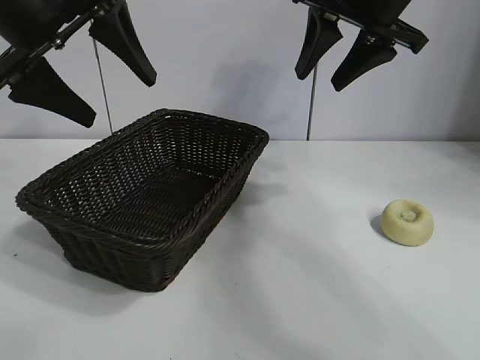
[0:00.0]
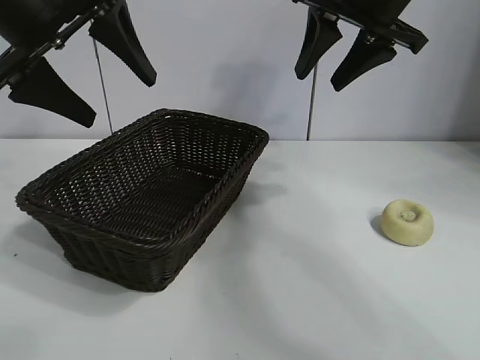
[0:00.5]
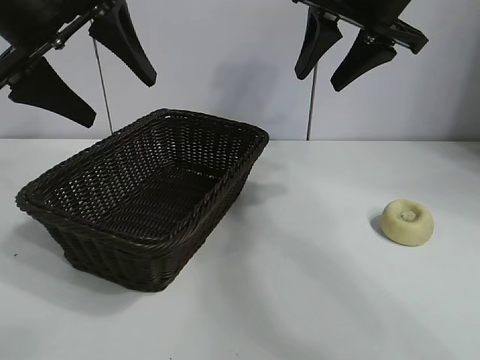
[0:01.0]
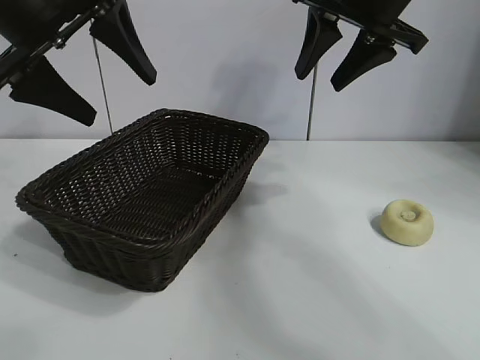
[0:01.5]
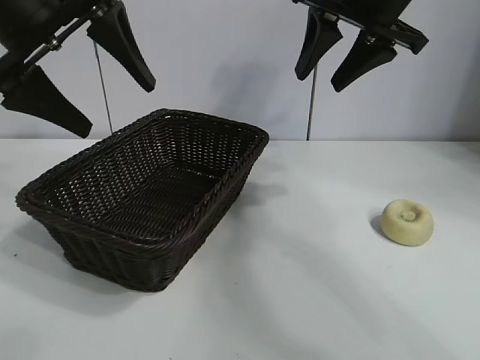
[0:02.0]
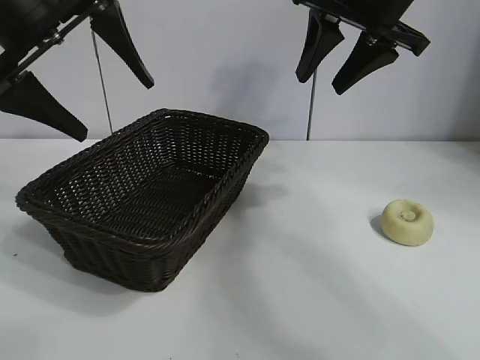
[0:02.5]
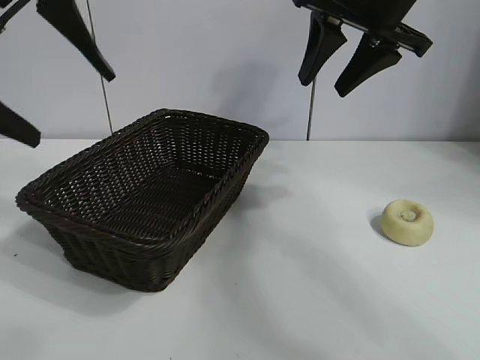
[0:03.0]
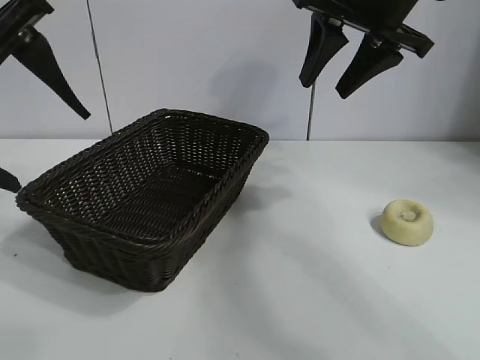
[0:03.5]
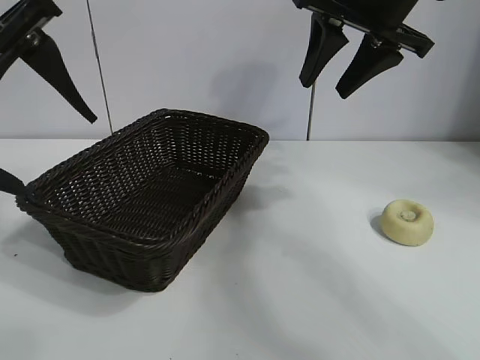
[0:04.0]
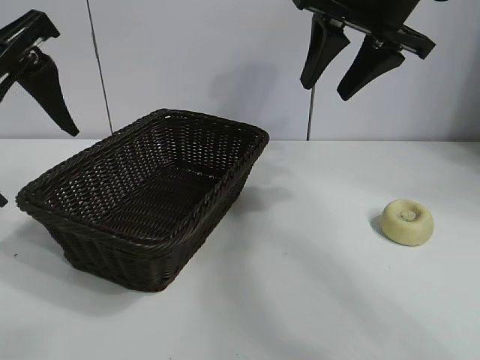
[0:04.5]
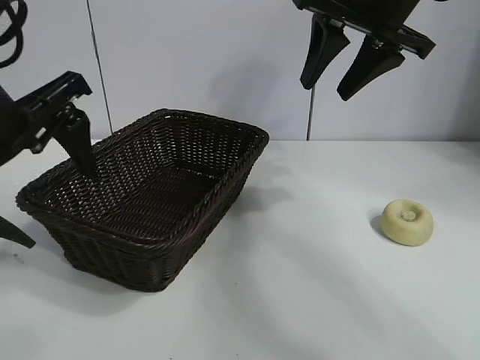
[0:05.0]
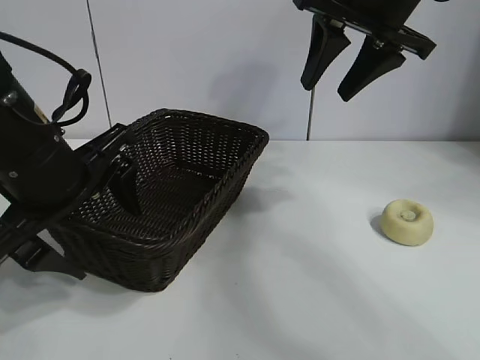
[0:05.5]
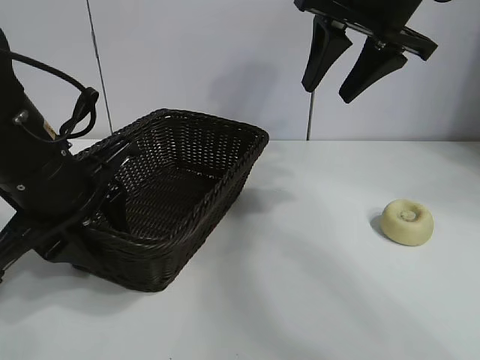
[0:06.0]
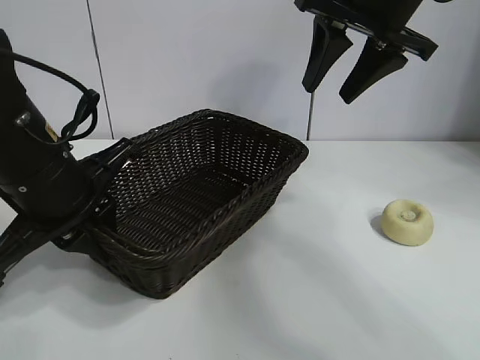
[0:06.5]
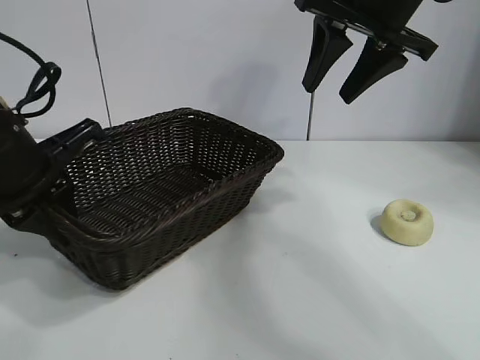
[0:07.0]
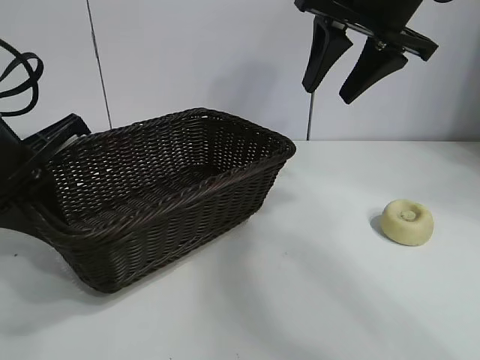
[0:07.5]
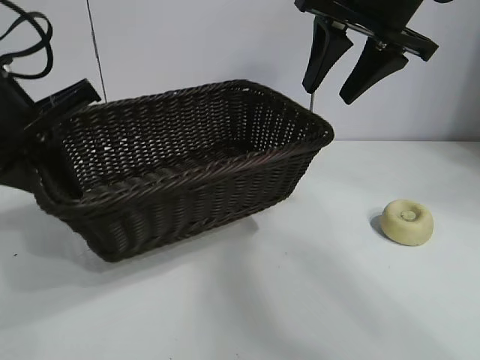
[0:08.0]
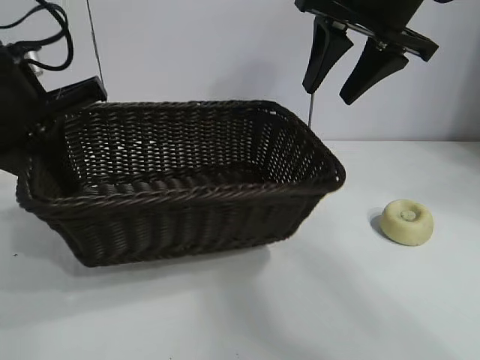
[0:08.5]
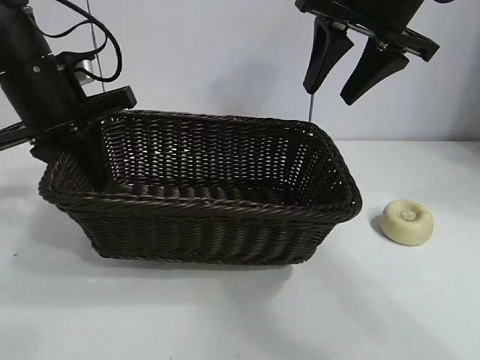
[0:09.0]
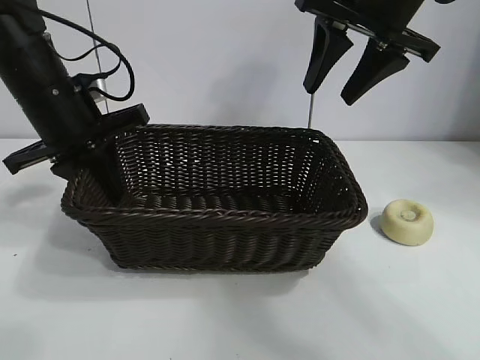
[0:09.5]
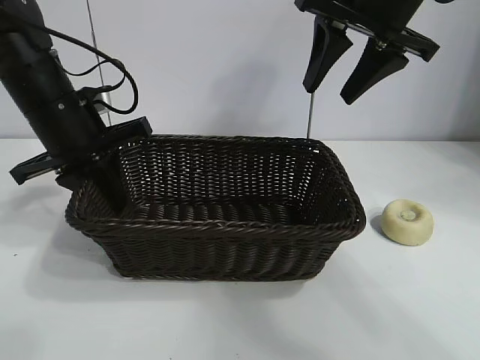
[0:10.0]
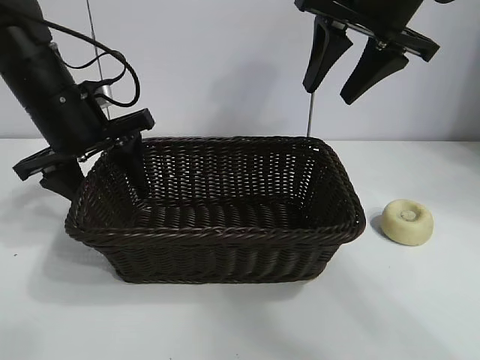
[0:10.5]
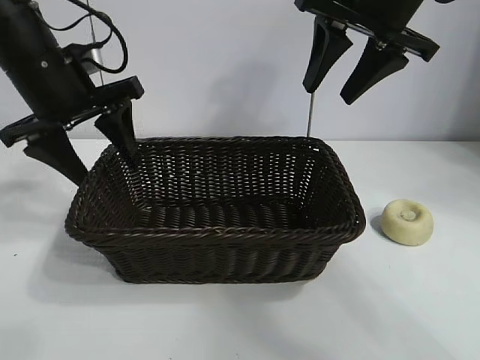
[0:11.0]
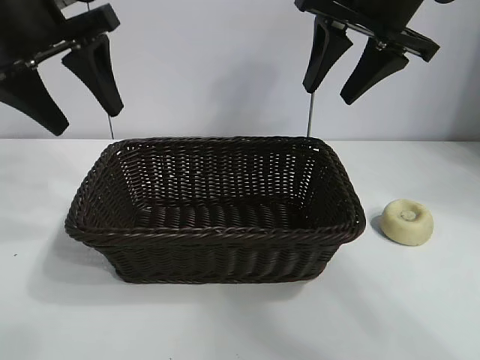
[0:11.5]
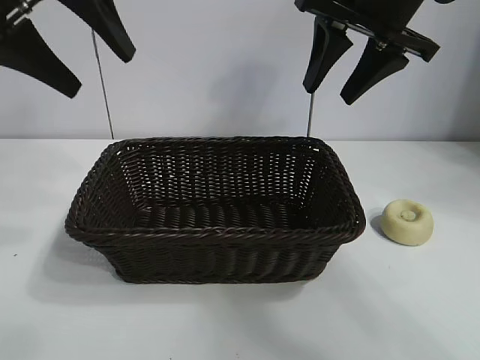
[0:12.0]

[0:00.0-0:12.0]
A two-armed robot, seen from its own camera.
Task of the whole recording: pick up the egg yolk pastry and put it into the basket.
Step, 0:01.5 to 0:06.0: Grasp the basket with left gripper.
Step, 0:06.5 to 0:10.0: Place the basket in the center of view with left gripper.

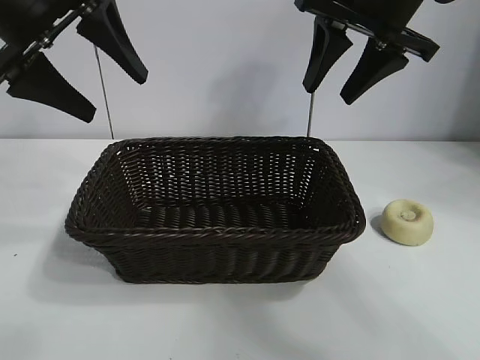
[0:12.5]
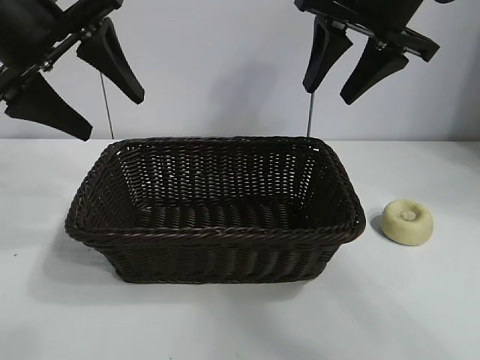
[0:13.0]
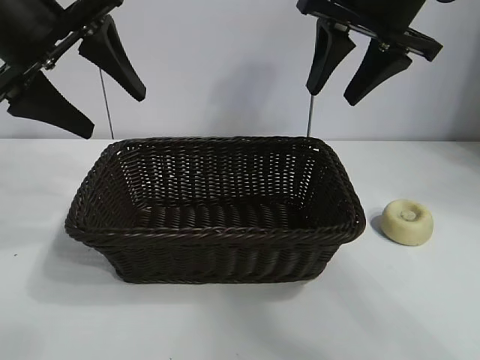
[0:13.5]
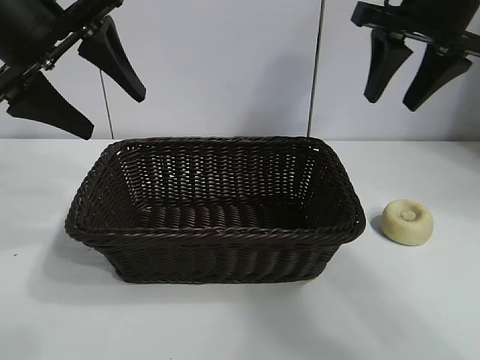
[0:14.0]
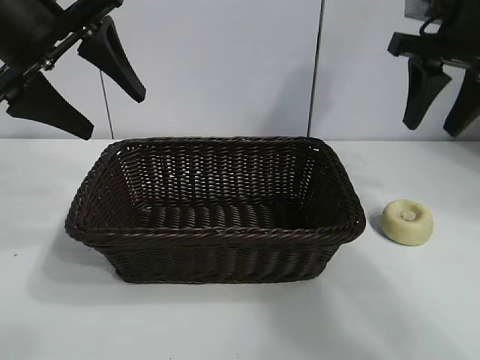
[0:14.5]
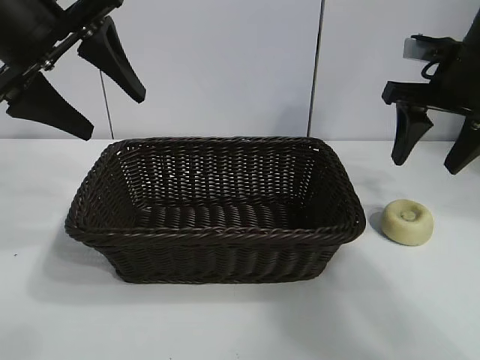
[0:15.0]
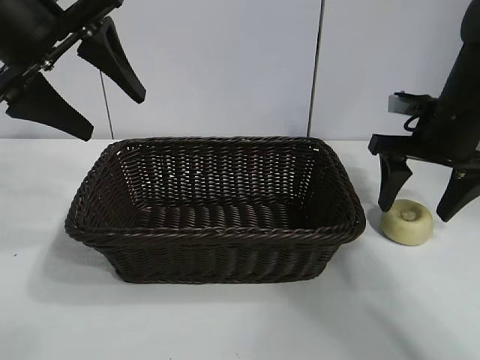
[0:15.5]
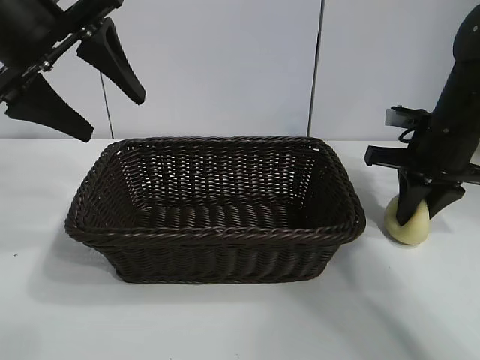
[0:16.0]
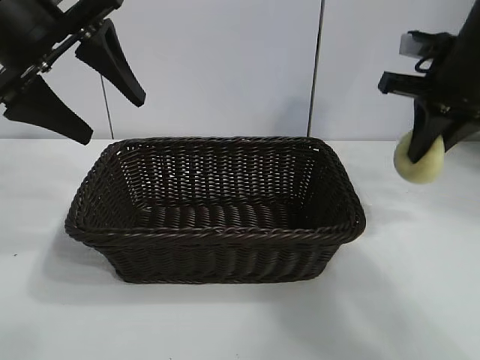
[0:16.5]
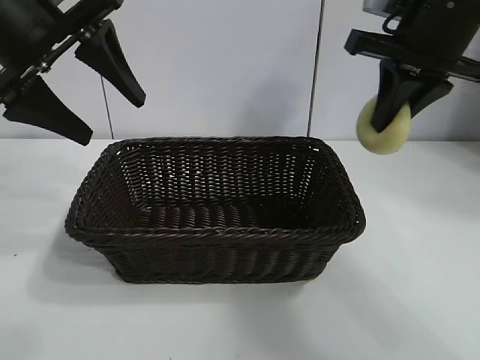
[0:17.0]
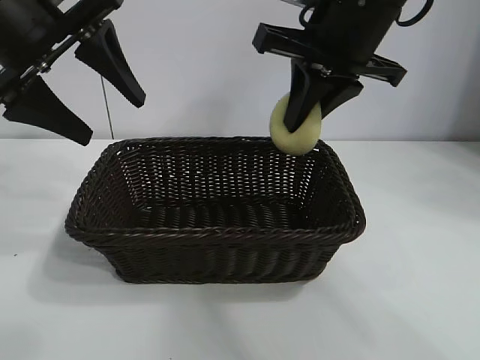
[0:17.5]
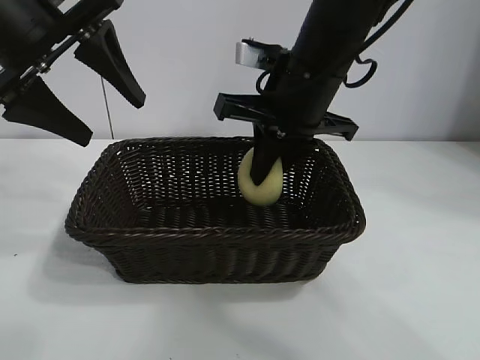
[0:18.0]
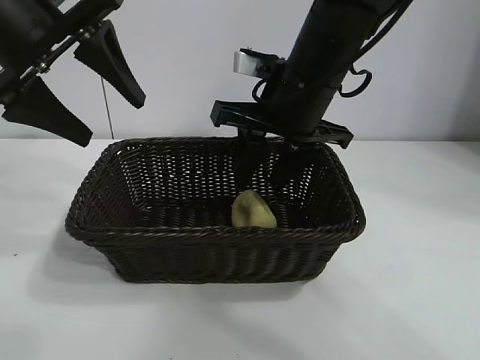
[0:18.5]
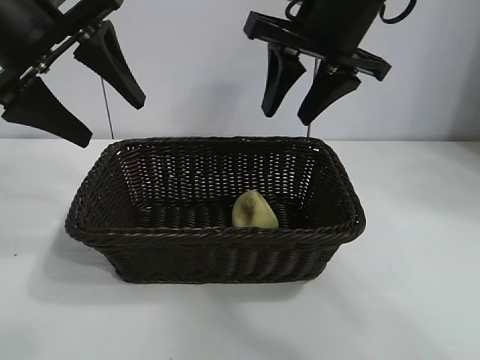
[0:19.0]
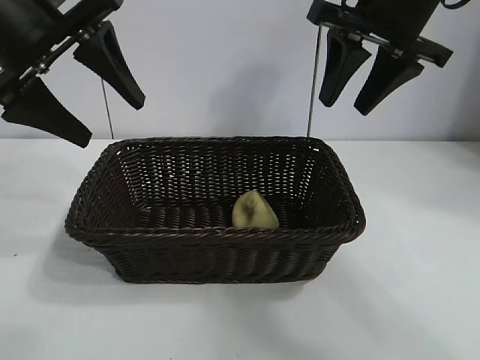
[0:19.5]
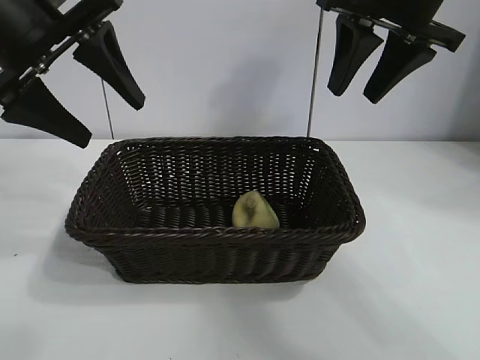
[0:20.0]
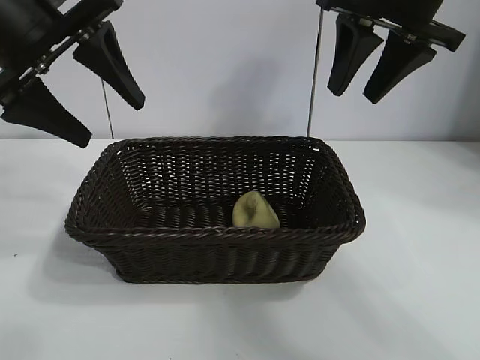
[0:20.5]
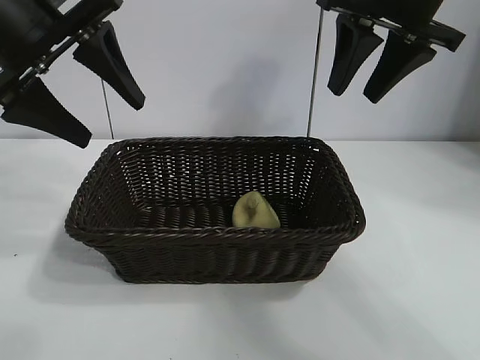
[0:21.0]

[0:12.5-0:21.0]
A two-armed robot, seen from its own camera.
Task of the whole recording: pick up the egg yolk pastry and put it into the basket.
Step, 0:12.5 to 0:16.0: Grasp egg yolk pastry with right gripper.
Step, 0:16.5 to 0:18.0: Place the egg yolk pastry in the basket with right gripper.

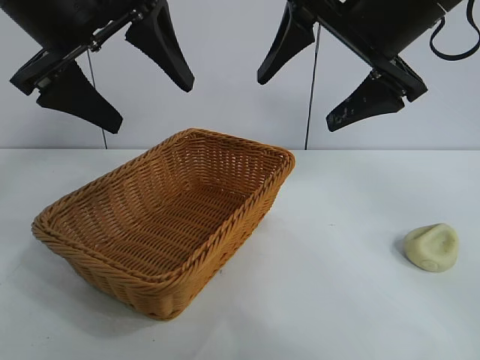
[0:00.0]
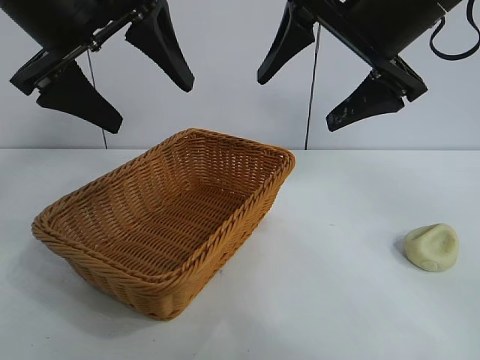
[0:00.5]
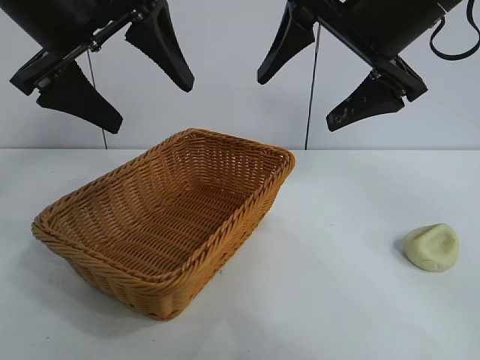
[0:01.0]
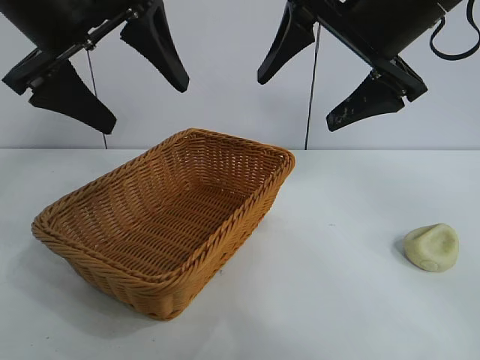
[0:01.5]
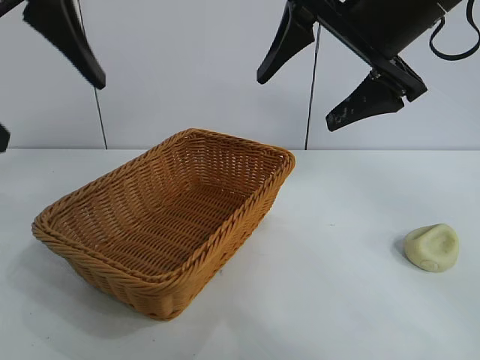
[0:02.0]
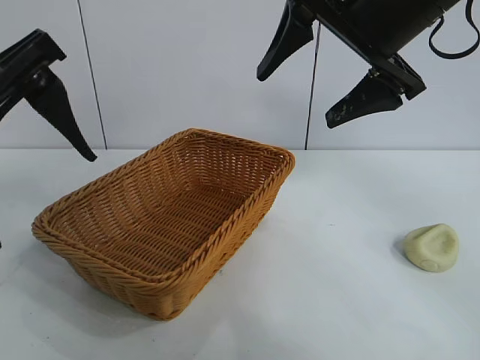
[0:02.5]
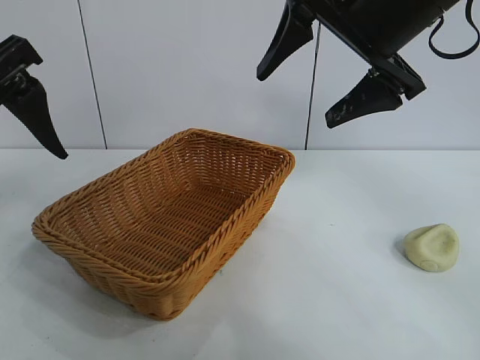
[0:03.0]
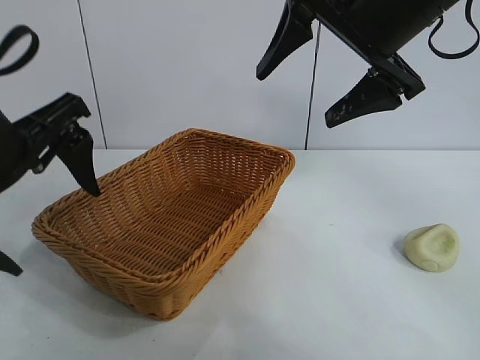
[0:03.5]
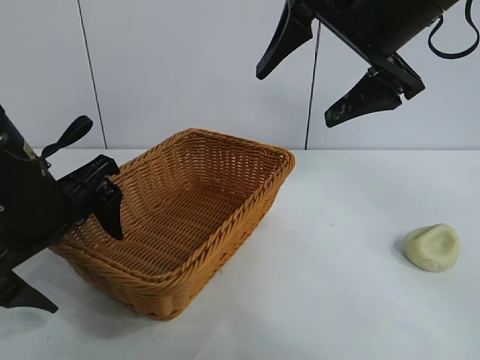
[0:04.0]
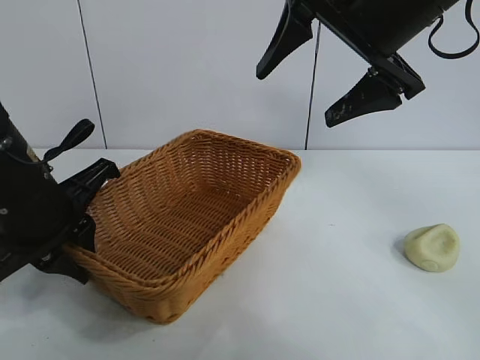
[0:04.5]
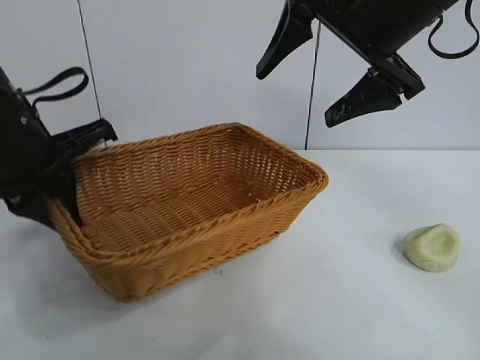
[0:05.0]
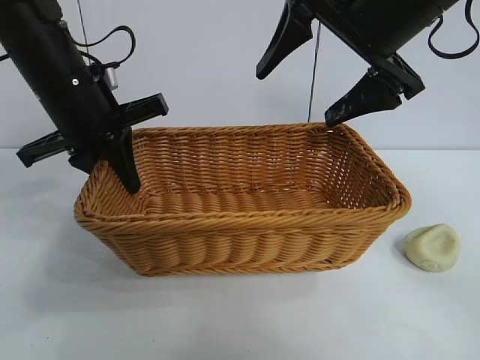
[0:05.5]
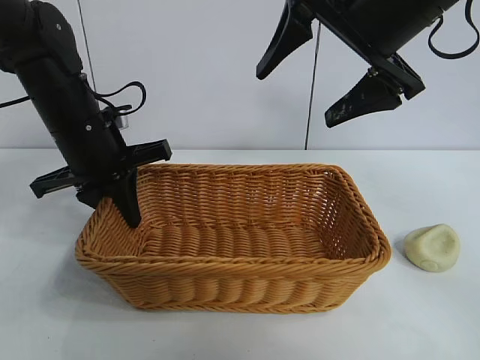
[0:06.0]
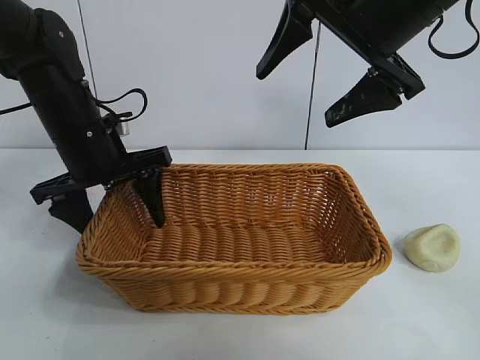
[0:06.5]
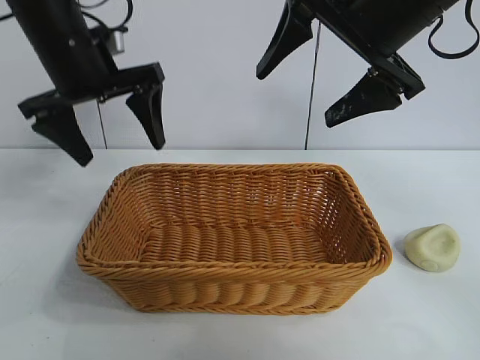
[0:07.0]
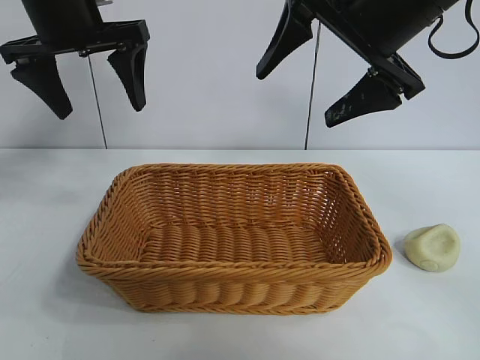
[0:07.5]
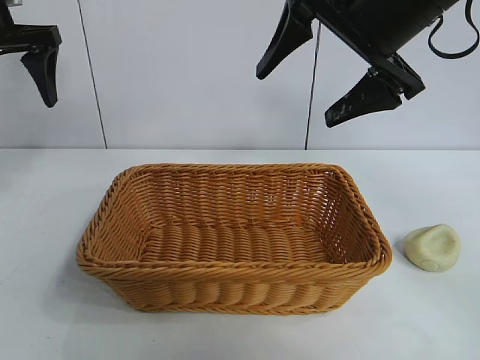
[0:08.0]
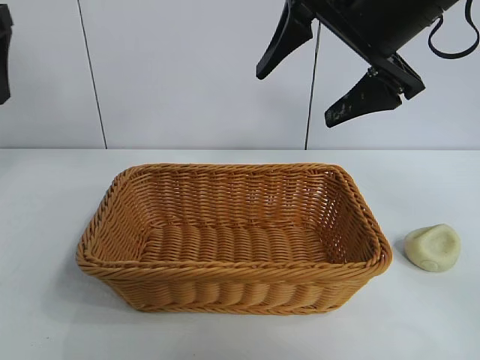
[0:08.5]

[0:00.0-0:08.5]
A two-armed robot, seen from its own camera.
Task of the whole recording: pick up the egg yolk pastry and put it into the basket.
Step, 0:01.5 to 0:04.5: Grasp the basket with left gripper.
Step, 0:05.0 to 0:06.5: Place the basket in the center of view with left gripper.
